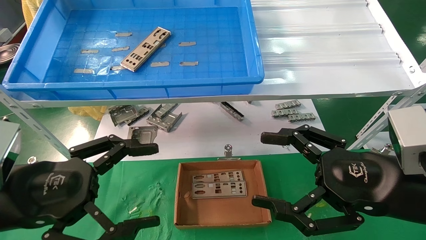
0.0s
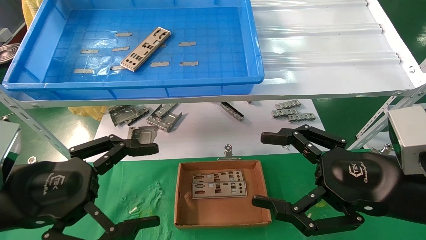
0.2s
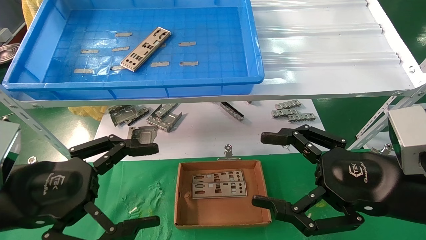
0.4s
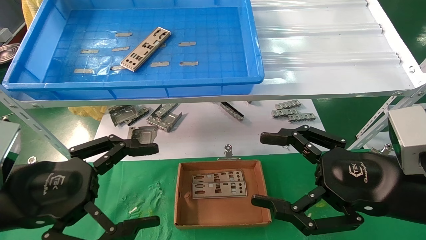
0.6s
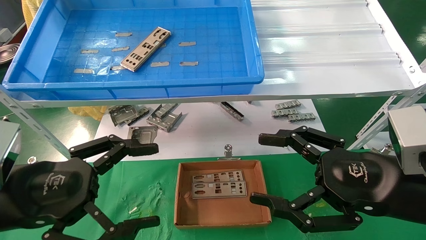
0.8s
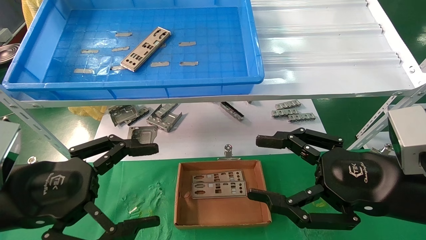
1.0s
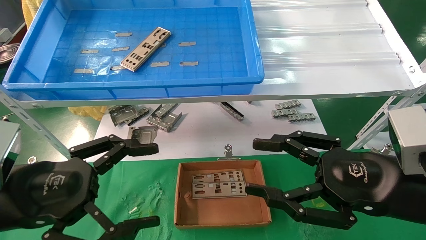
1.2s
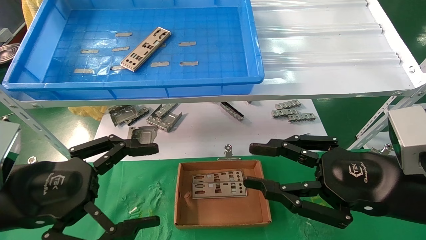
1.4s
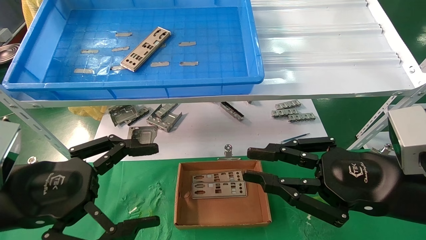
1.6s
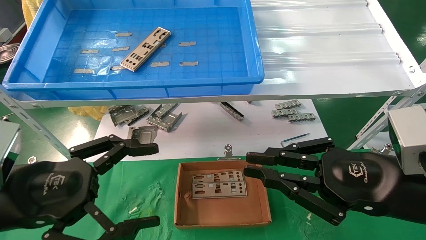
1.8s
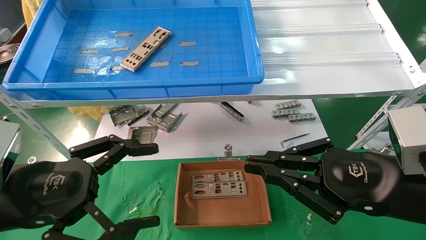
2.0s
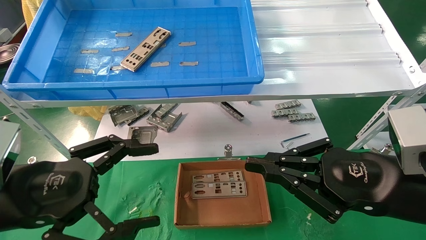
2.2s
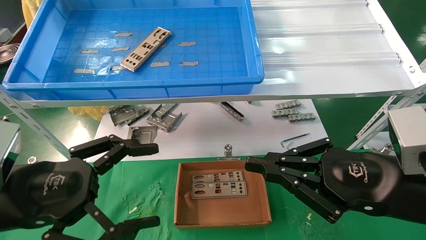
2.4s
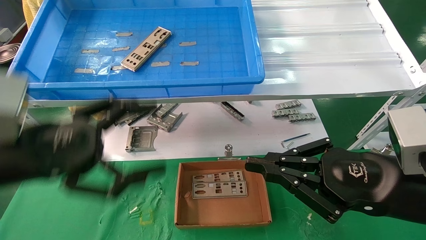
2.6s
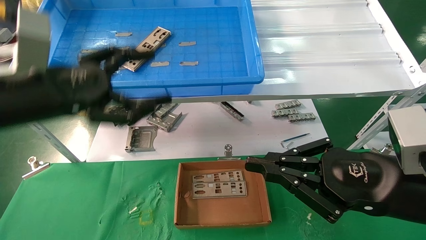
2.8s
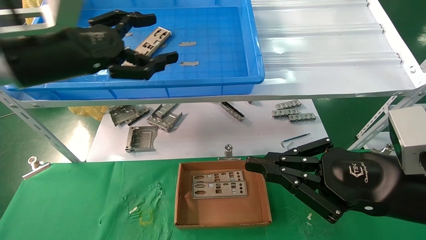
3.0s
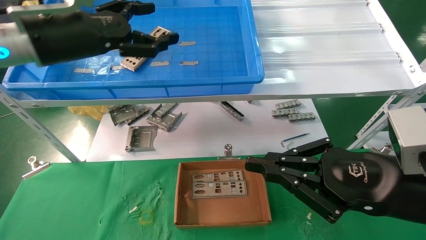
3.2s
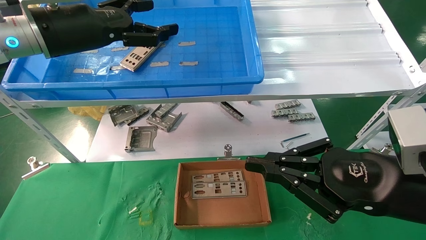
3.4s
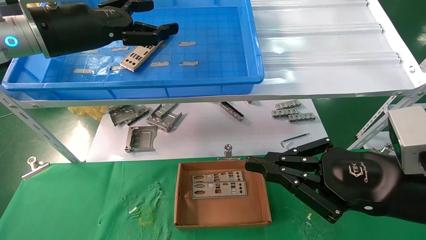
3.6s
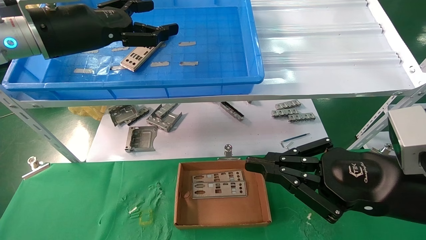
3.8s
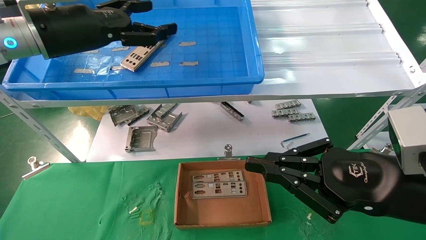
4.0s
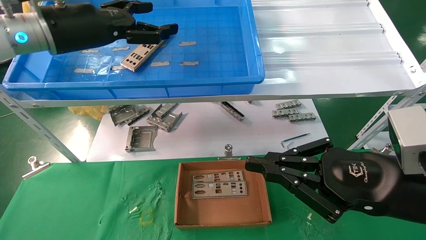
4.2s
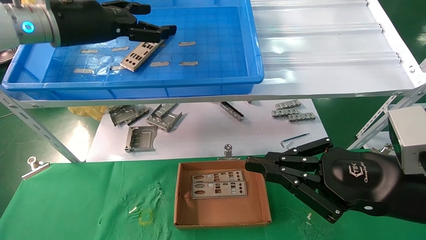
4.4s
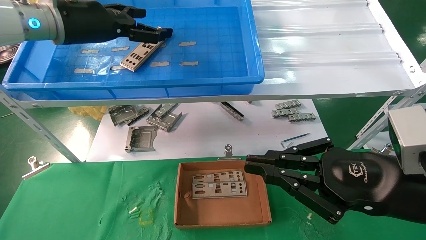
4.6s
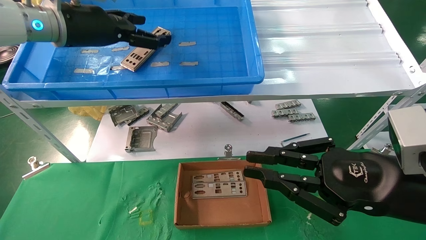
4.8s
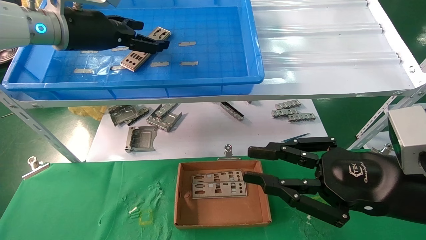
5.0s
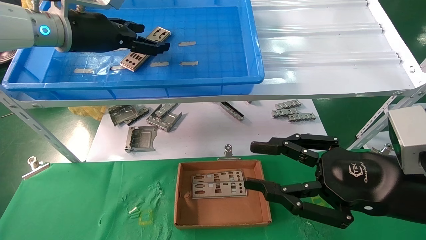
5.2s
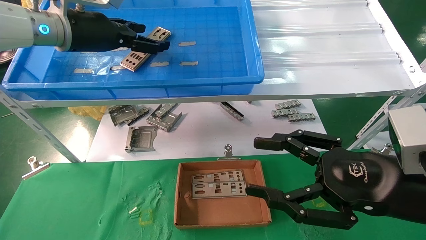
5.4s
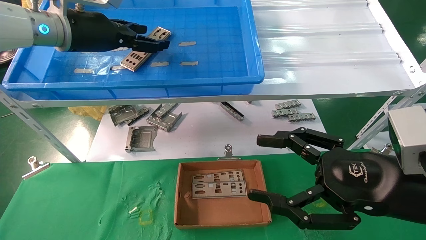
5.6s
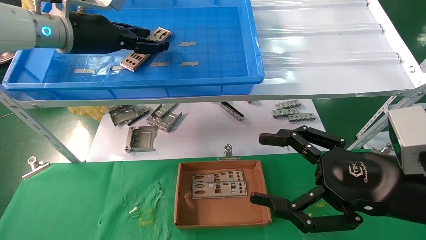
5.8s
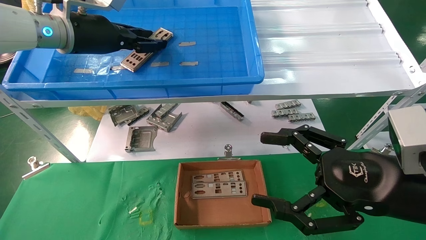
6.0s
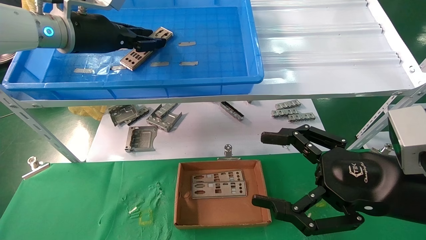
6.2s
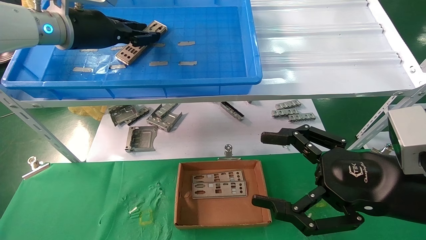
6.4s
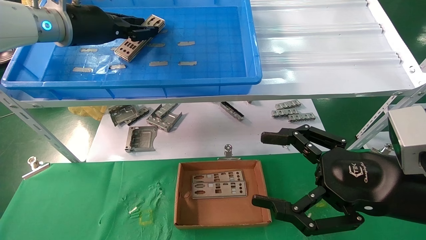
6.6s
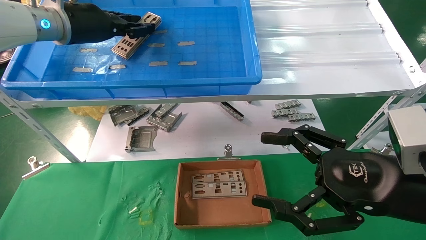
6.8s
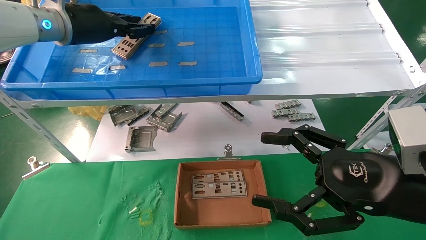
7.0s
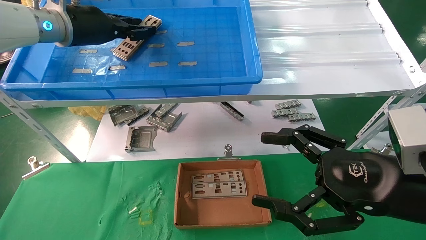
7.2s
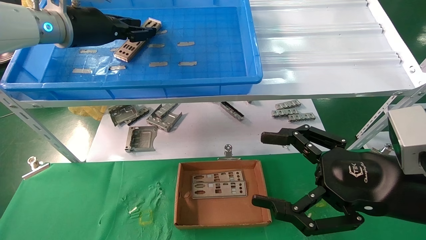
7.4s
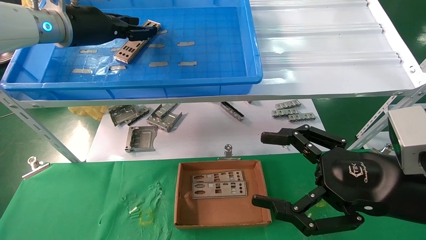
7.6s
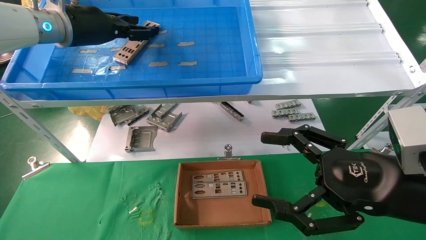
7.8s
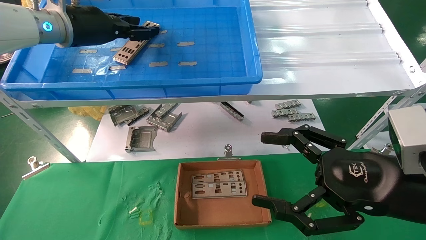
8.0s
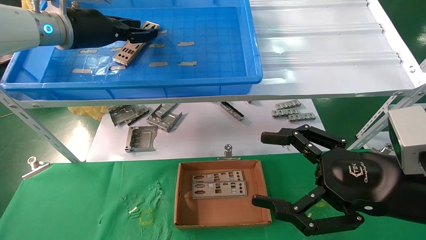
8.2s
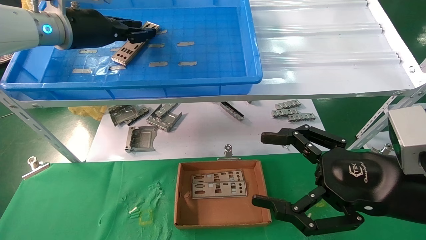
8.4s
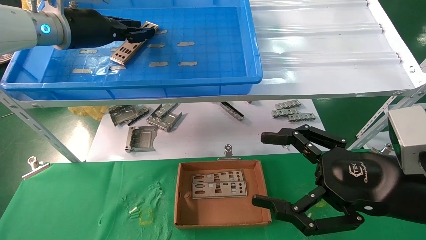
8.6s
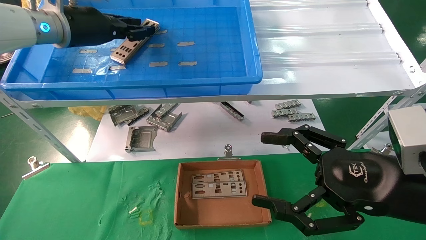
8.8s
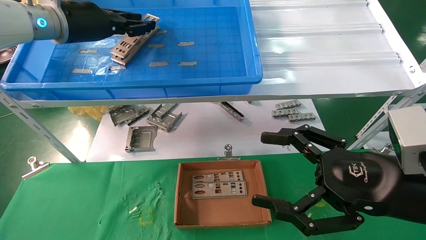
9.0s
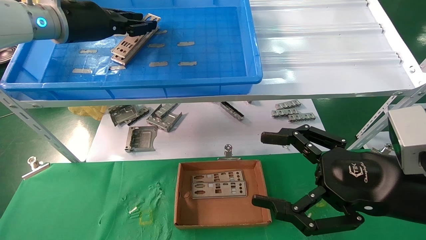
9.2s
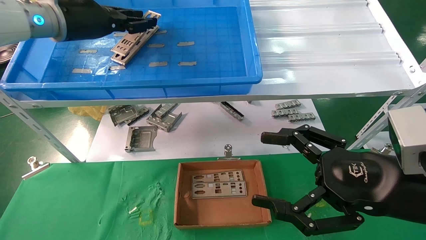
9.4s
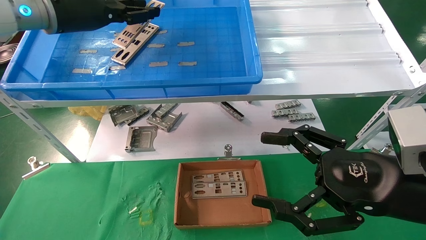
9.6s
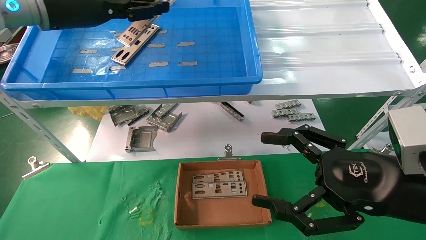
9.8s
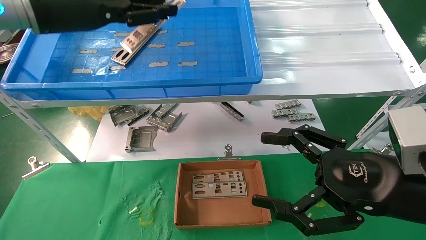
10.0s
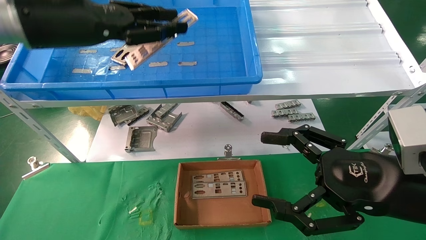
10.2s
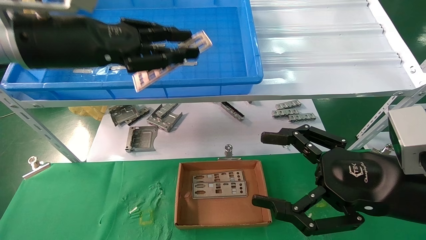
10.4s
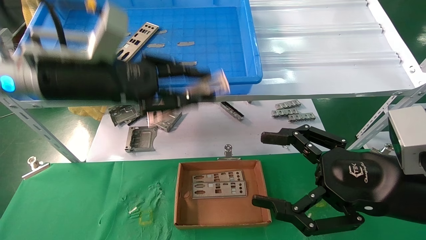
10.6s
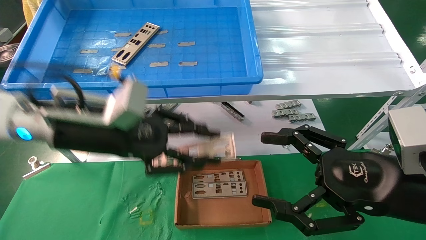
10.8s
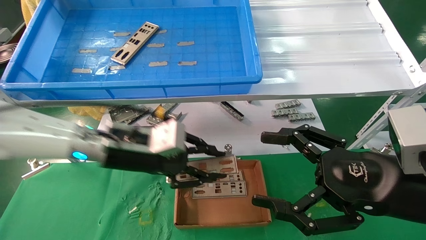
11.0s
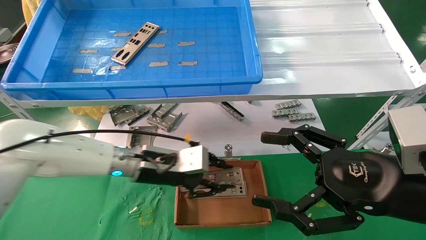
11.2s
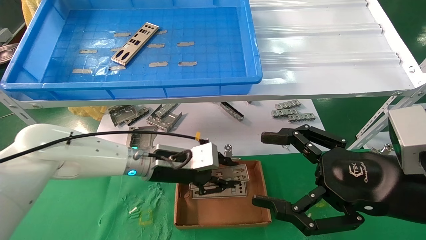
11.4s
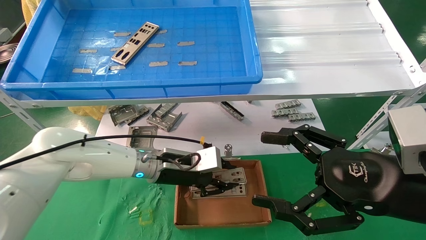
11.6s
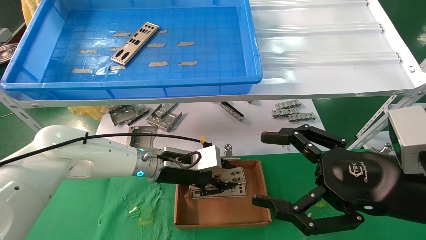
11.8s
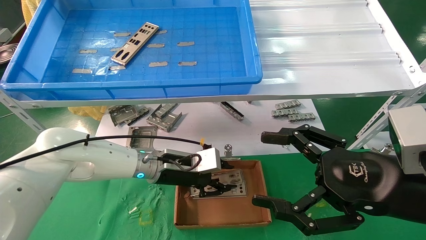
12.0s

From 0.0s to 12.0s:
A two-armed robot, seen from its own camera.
Task of the whole recording: pick up the parts on the tray and put them in the cardboard box.
Step, from 2.8s to 8.8s: Pick up the IO bracket from the container box.
From 0.0s to 1.6s: The right gripper closes up.
From 1.6s to 3.0s: The right gripper closes. Meanwhile the left gripper is displaced upward and forward by roughly 20 cm.
From 3.0s to 4.4s: The left gripper travels forward and upward by approximately 10 cm.
From 4.4s to 6.0s: The left gripper closes up; the right gripper opens up.
From 6.0s to 7.6s: There are only small adjustments of the grippers.
From 7.6s to 9.0s: Both grippers stay put.
From 9.0s to 10.4s: The left gripper shifts approximately 10 cm backward.
From 10.4s to 12.0s: The left gripper is displaced downward and to the right by approximately 30 cm.

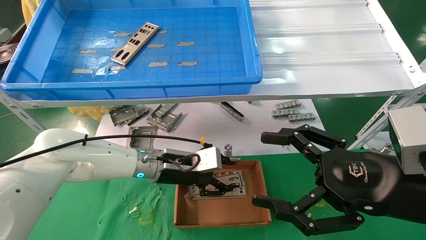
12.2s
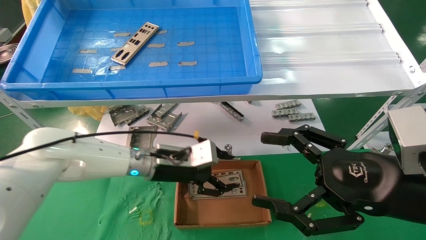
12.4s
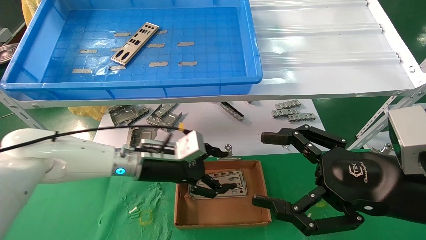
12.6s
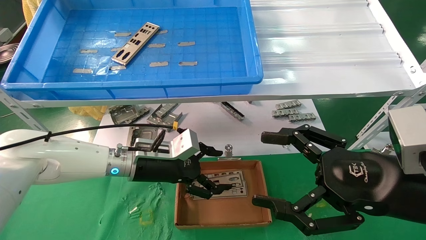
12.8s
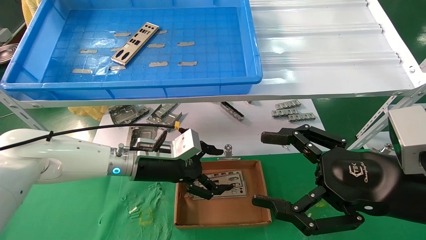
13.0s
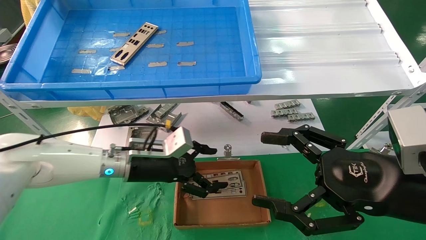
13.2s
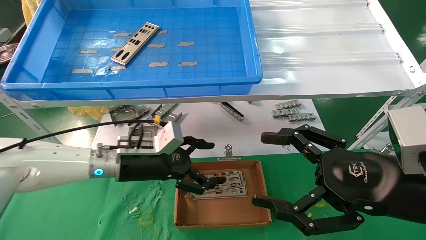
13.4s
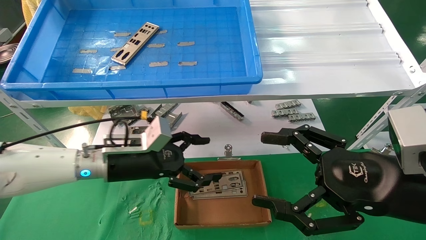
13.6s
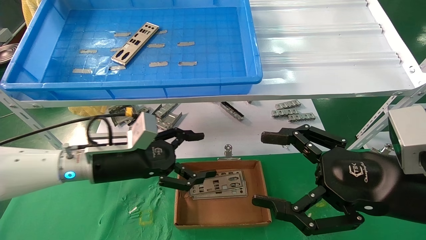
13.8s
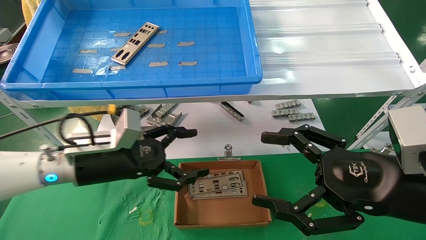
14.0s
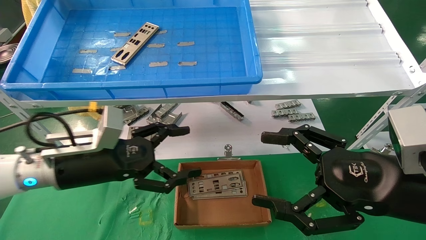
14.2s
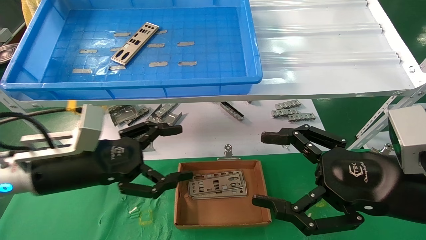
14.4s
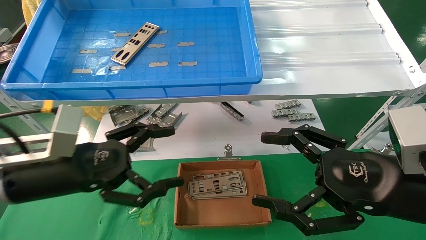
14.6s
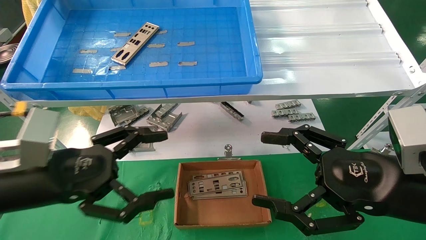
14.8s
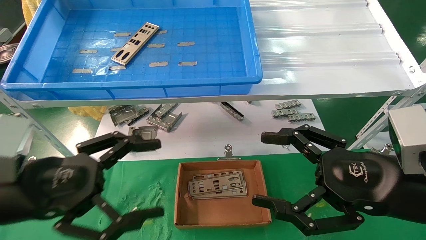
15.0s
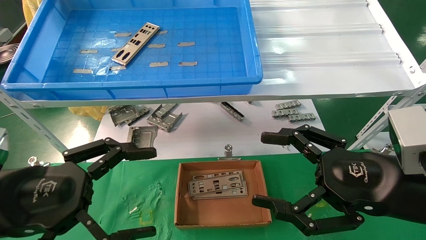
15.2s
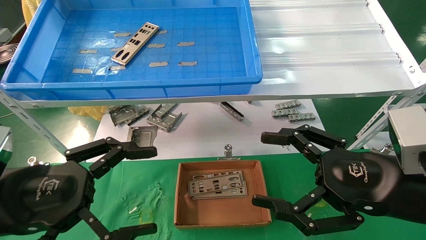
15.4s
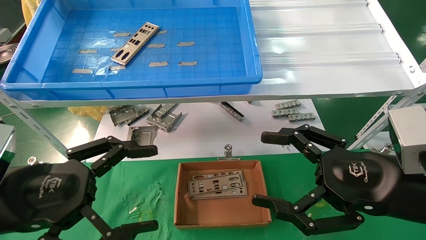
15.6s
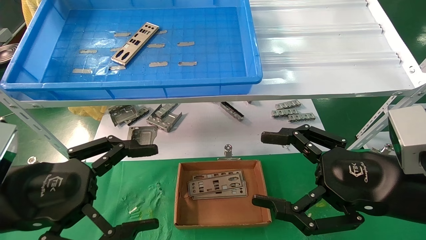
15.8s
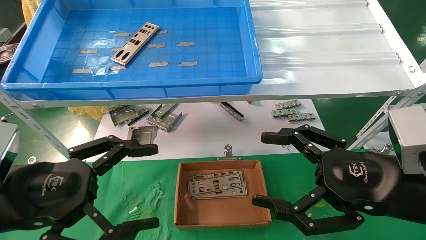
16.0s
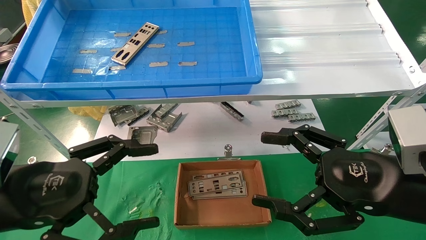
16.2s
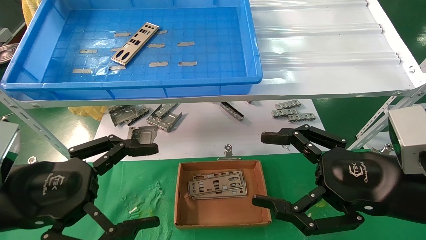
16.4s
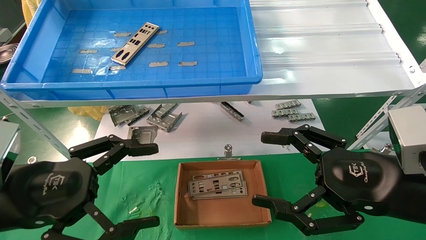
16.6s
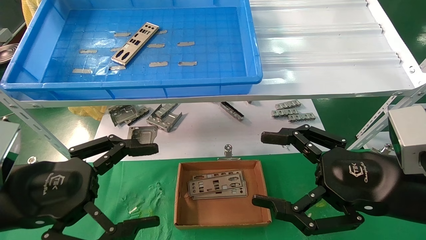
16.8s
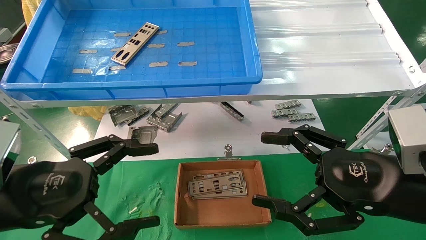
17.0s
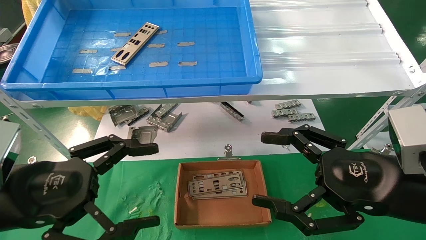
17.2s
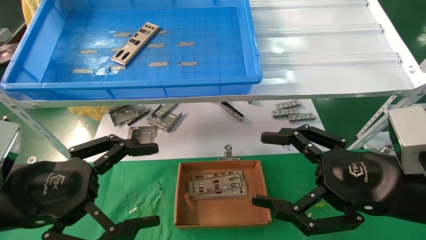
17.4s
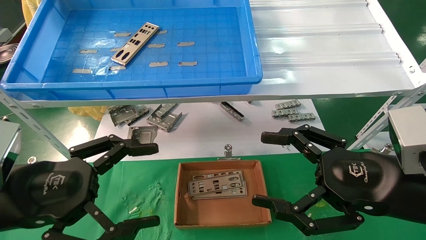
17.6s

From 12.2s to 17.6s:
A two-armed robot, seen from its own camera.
Task of the whole recording: pick up the parts on the tray and put them in the cardboard box.
From 12.2s to 13.6s: The left gripper is displaced to the left by approximately 10 cm, and opens up.
From 13.6s to 15.0s: The left gripper is displaced backward and to the left by about 20 cm.
From 15.0s to 16.2s: The grippers make only small movements.
From 16.2s to 17.6s: Both grippers stay put.
